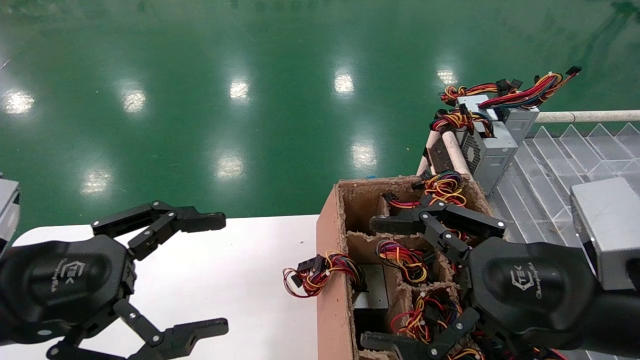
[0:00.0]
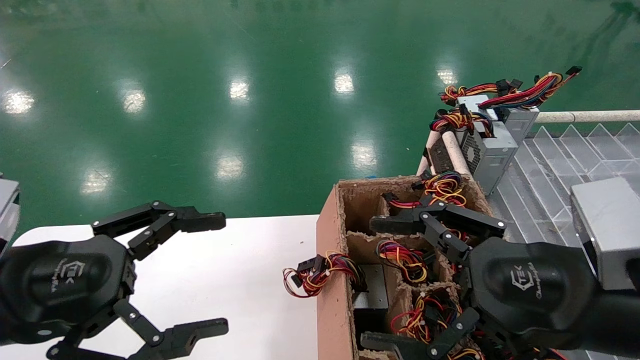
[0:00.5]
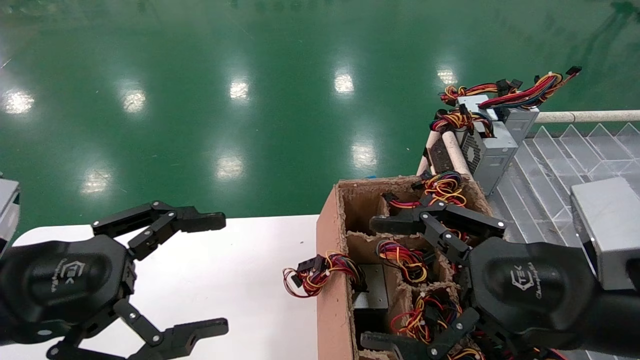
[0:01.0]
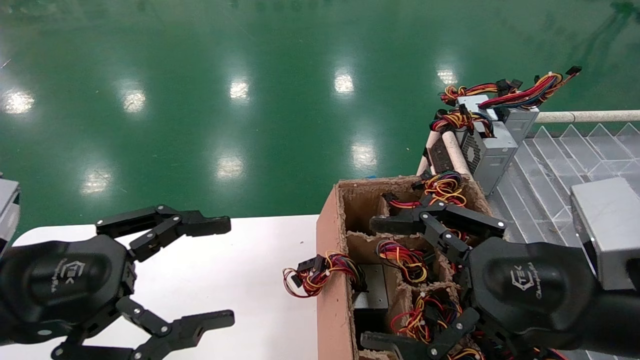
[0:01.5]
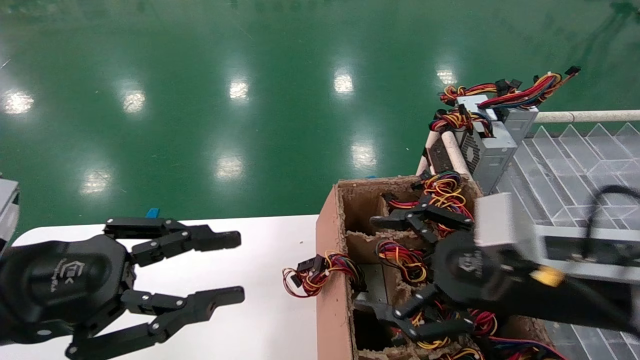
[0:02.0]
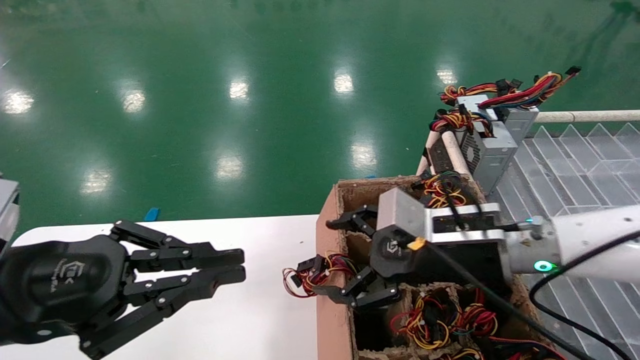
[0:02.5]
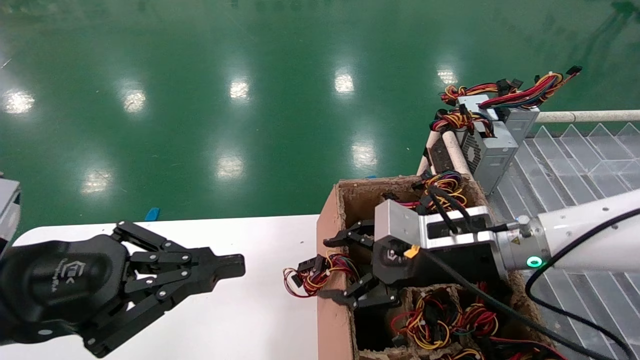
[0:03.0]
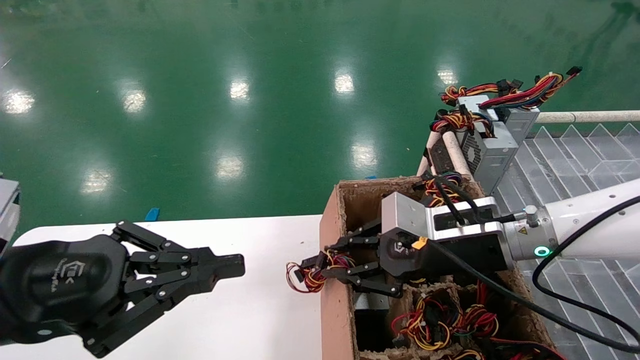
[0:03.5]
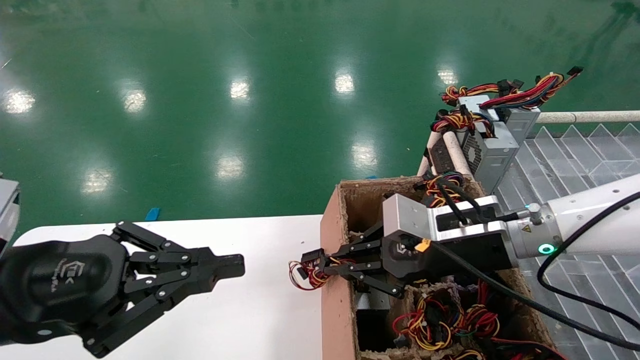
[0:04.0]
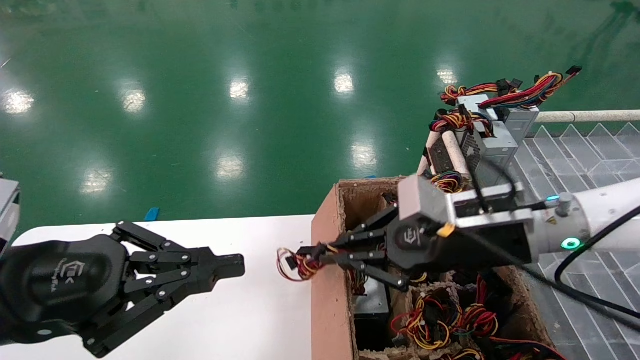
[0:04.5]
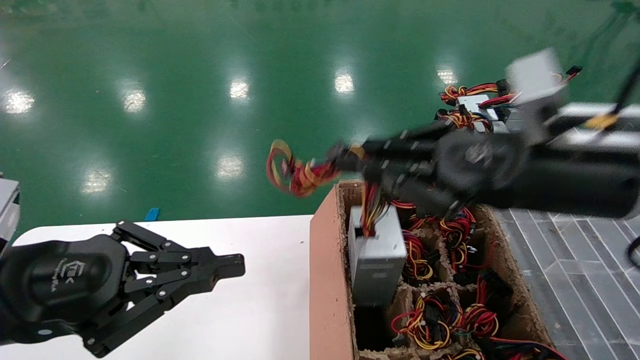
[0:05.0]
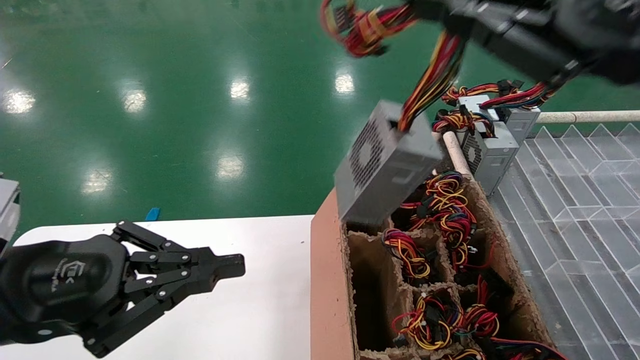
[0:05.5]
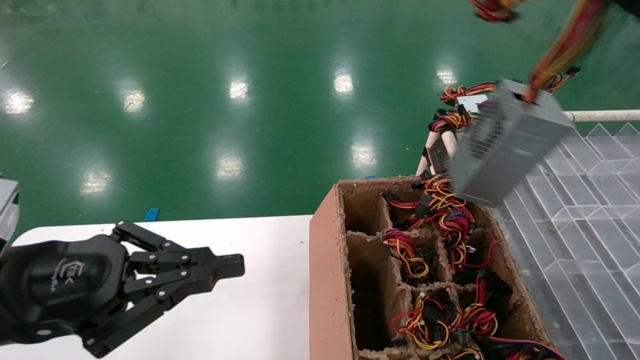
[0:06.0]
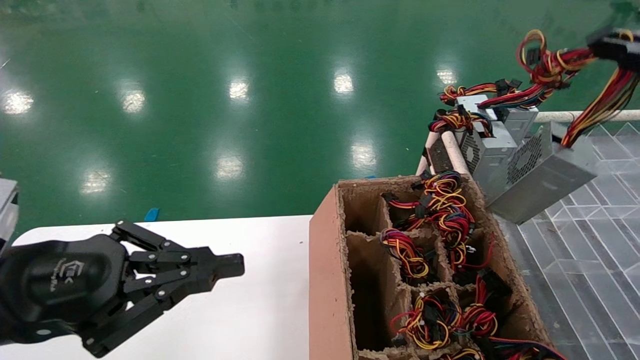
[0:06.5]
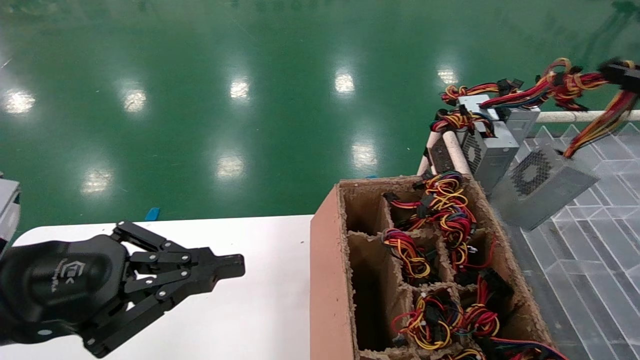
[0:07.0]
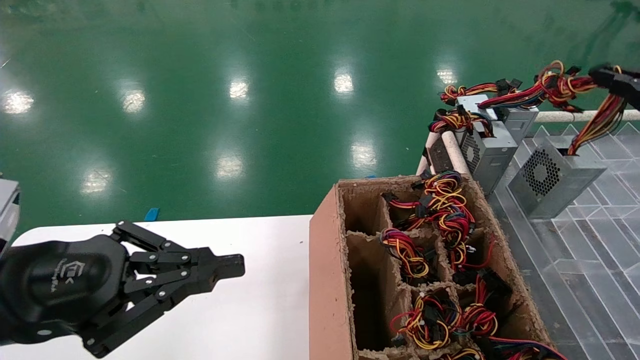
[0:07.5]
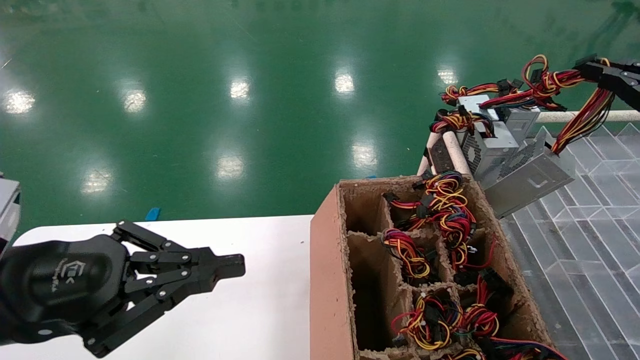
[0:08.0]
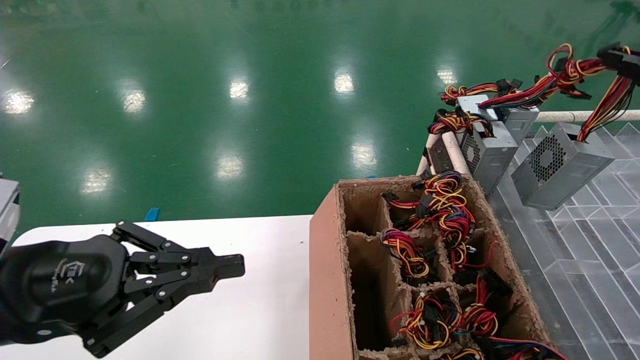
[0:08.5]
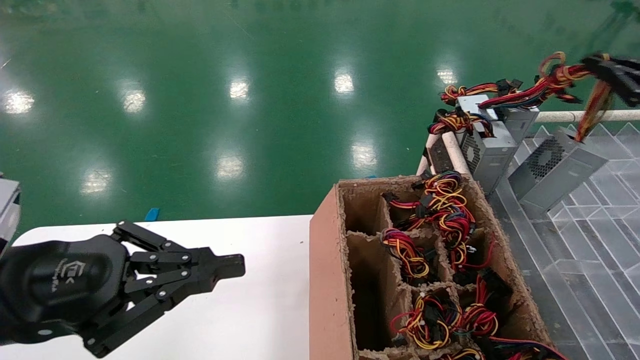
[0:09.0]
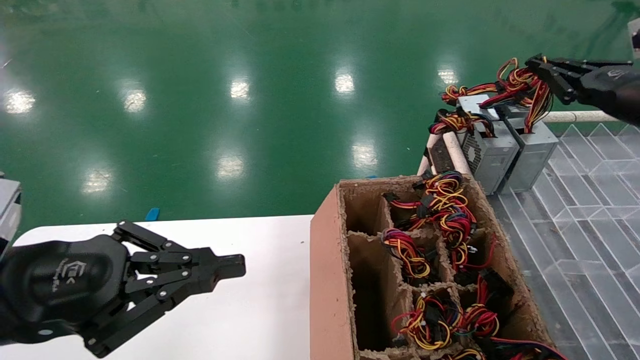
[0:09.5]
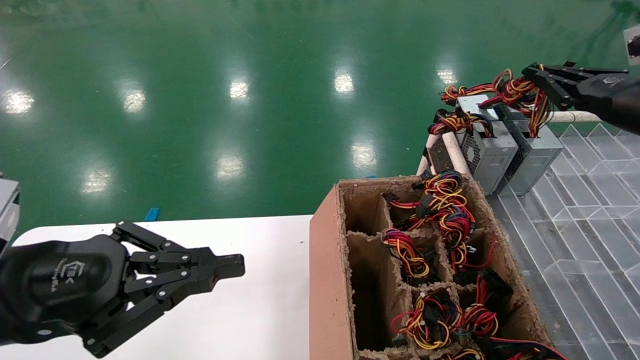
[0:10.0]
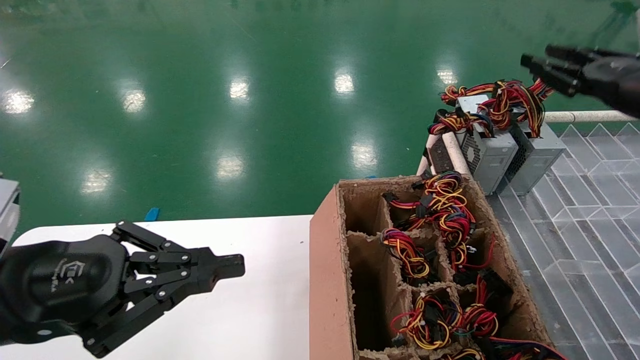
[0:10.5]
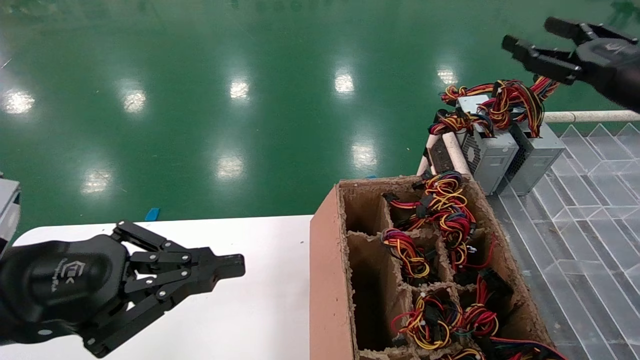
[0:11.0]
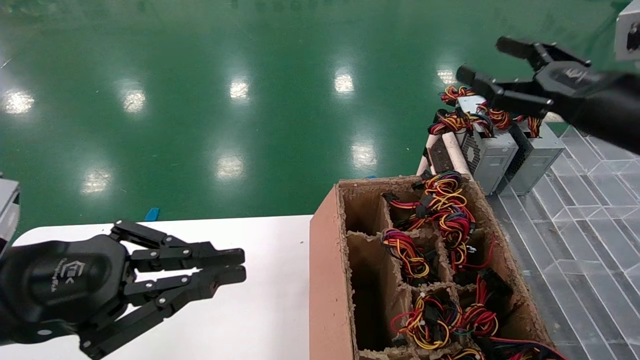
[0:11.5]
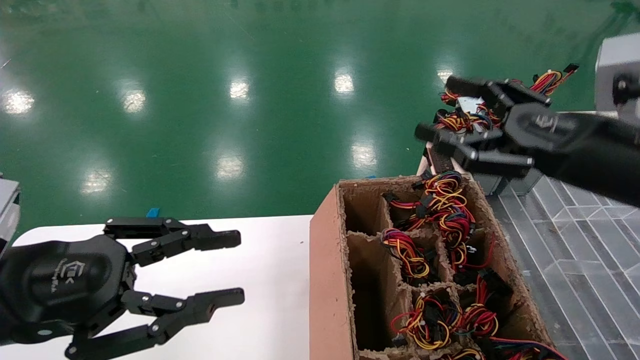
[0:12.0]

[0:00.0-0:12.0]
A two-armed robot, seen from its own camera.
Step, 0:02.0 to 0:03.5: Grab the main unit power supply from the containment box.
Step, 0:04.0 to 0:10.5: Place the main unit power supply in the designated area.
0:00.0 to 0:02.0: The right gripper moves forward, some 5 cm. The left gripper closes its fingers.
0:02.0 to 0:04.0: The left gripper closes up; the right gripper heads forward, covering some 10 cm, and closes up.
0:04.0 to 0:06.0: The right gripper shifts approximately 30 cm upward, to the right and backward.
0:06.0 to 0:08.0: The right gripper travels to the right, downward and forward by roughly 15 cm.
0:08.0 to 0:10.0: The right gripper is displaced forward by some 10 cm.
0:10.0 to 0:12.0: The right gripper travels to the left and backward by some 15 cm, and opens.

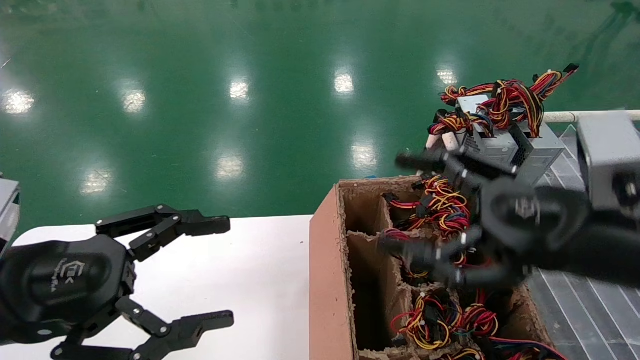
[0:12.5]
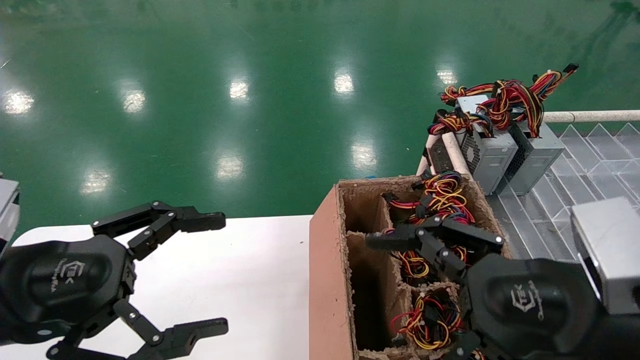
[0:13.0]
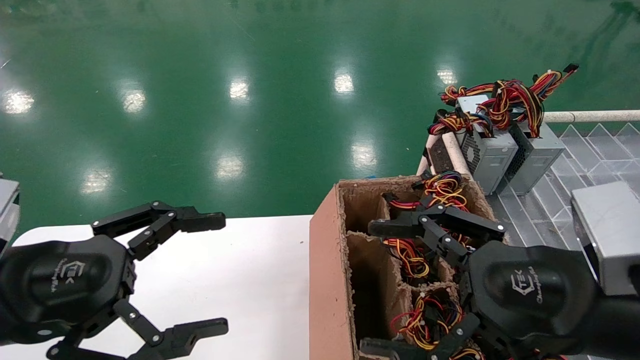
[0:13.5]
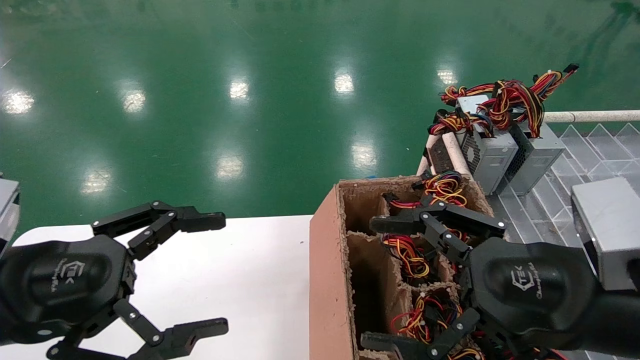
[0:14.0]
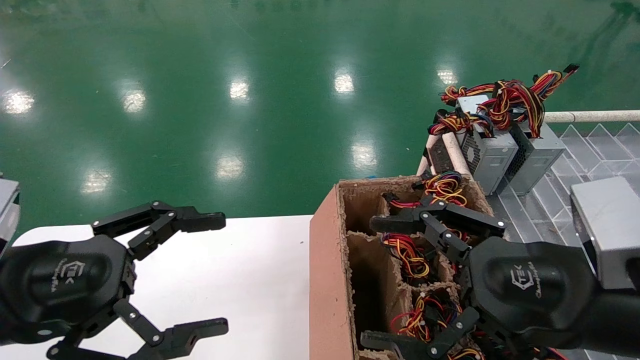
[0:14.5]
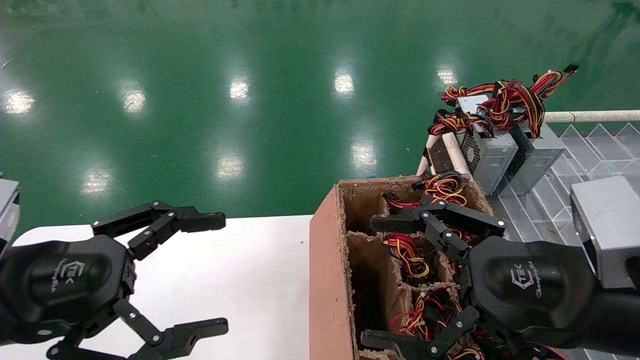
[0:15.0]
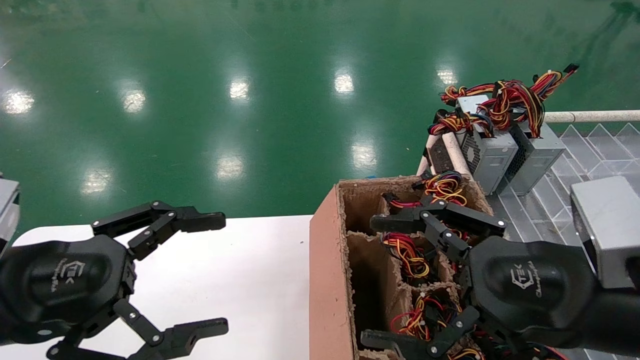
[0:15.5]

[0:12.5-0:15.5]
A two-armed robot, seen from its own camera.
0:12.5 to 0:14.0: The grippers stay close to where they were, moving slightly.
0:14.0 to 0:15.5: Both grippers stay put.
